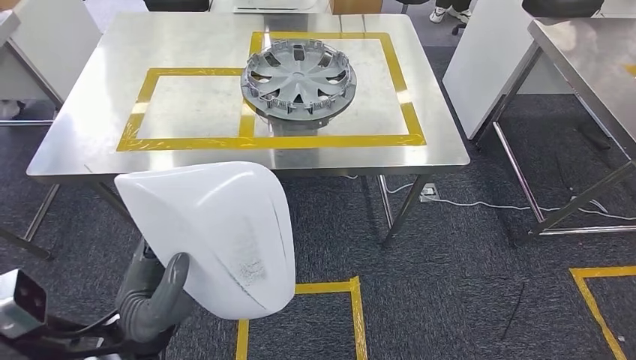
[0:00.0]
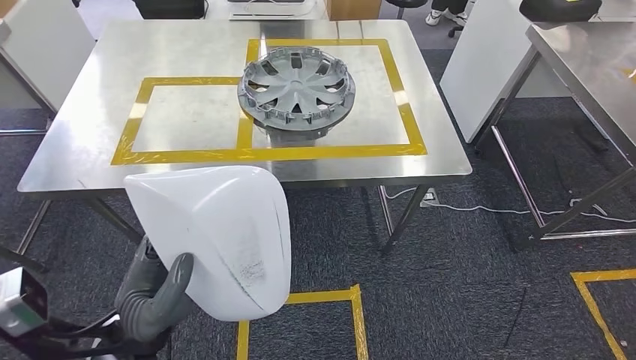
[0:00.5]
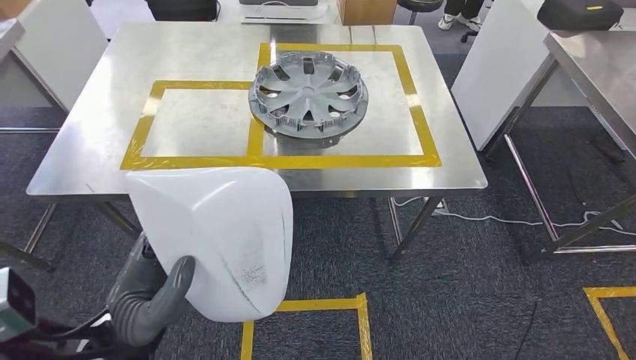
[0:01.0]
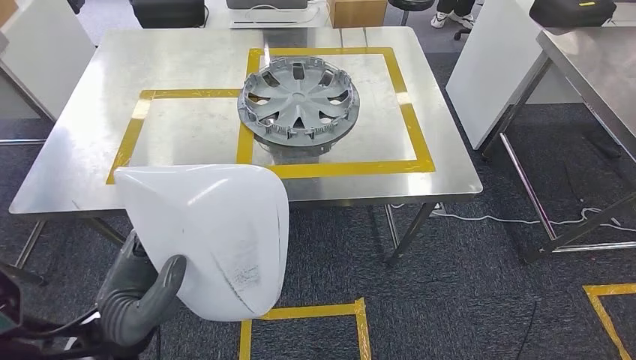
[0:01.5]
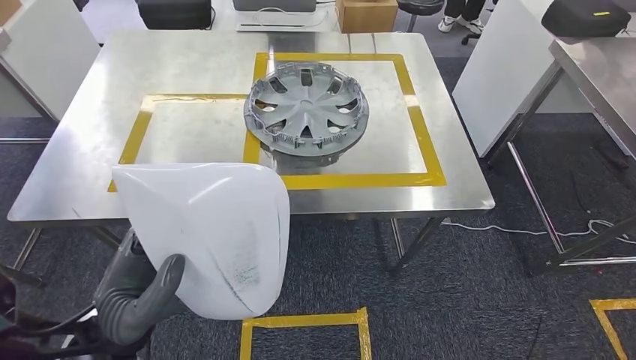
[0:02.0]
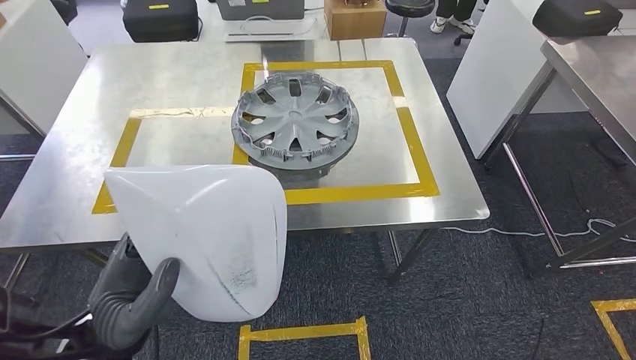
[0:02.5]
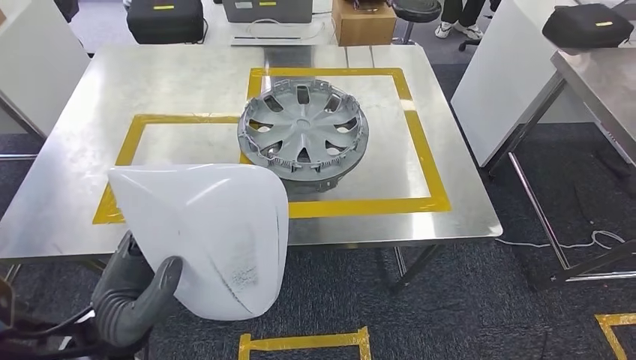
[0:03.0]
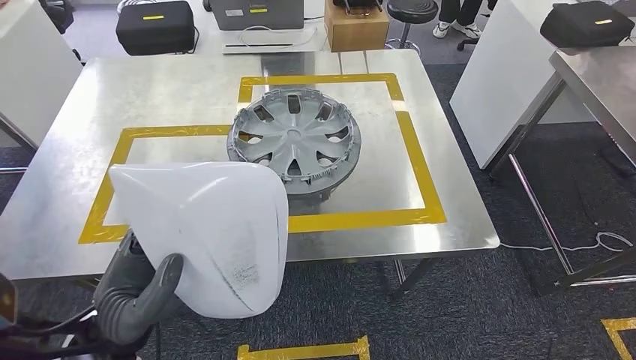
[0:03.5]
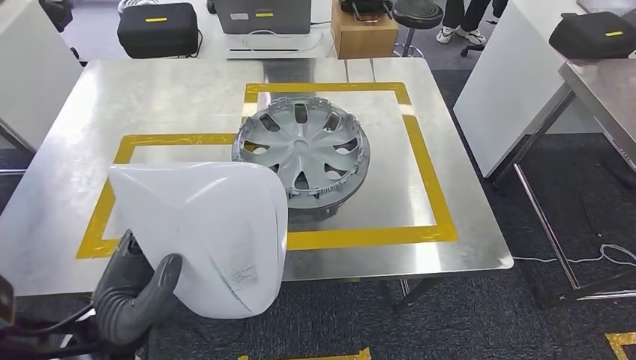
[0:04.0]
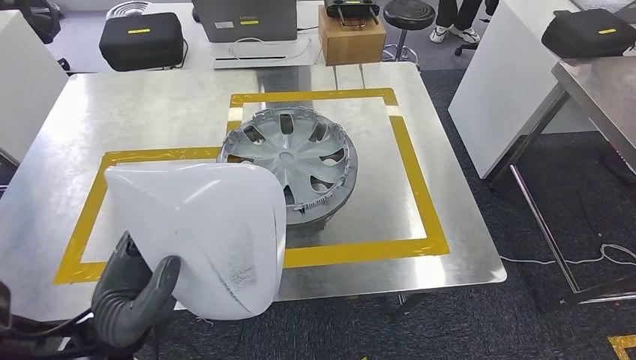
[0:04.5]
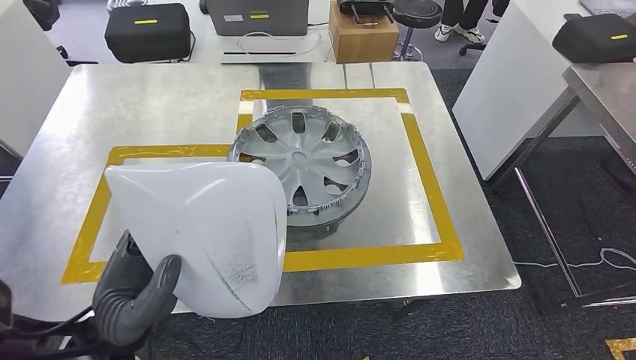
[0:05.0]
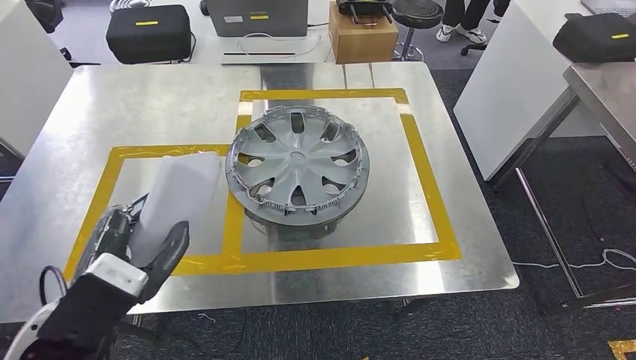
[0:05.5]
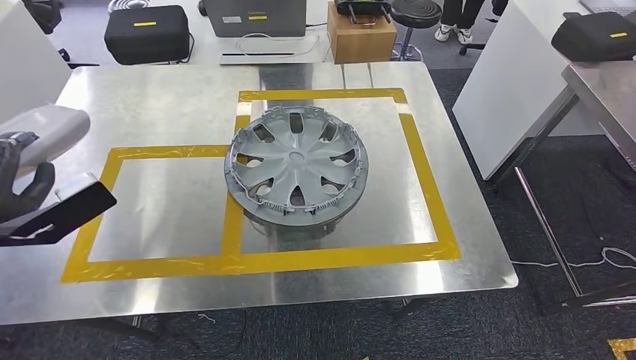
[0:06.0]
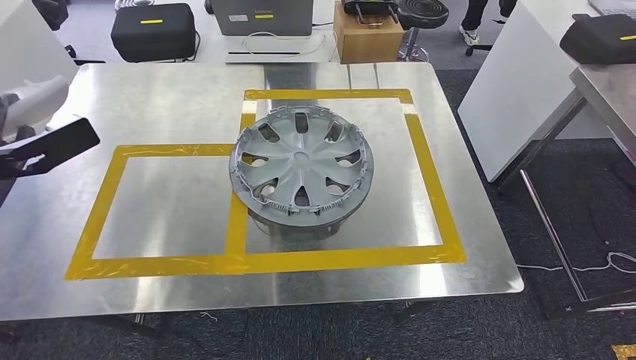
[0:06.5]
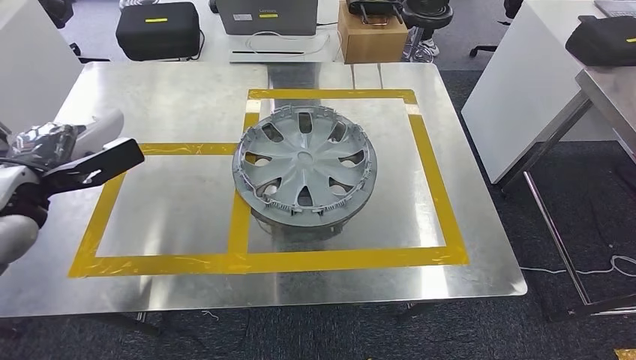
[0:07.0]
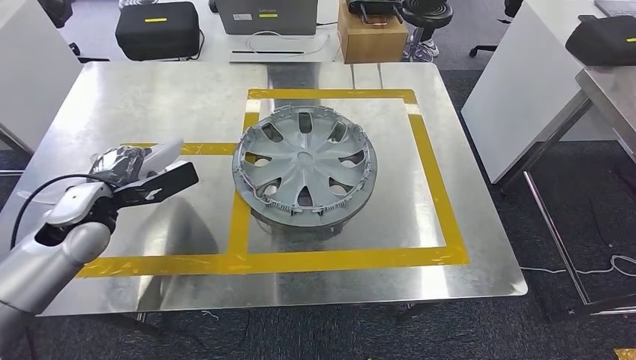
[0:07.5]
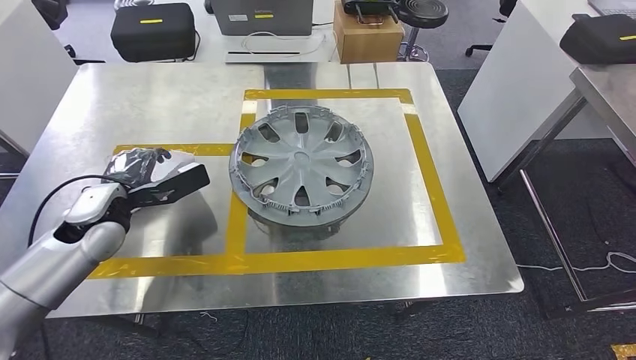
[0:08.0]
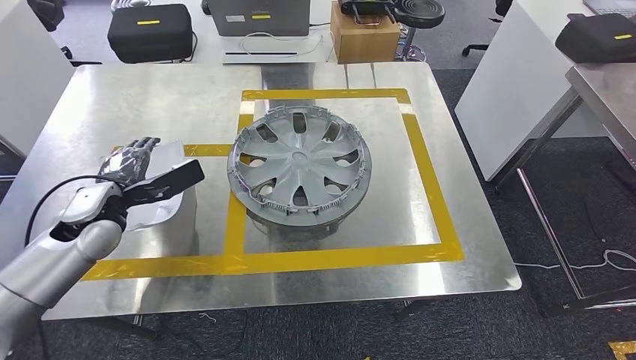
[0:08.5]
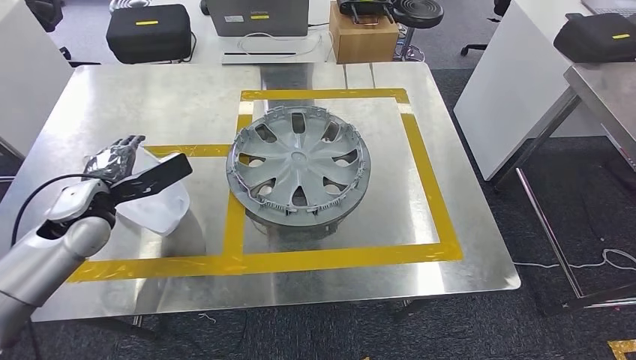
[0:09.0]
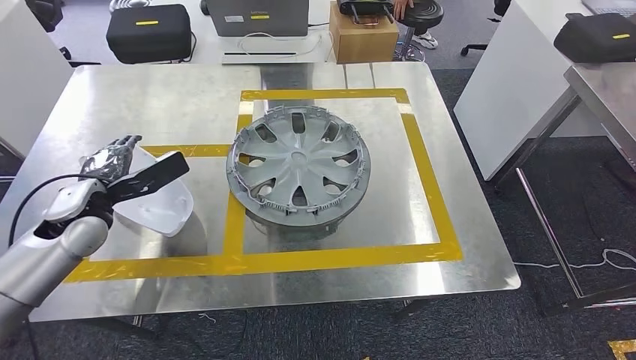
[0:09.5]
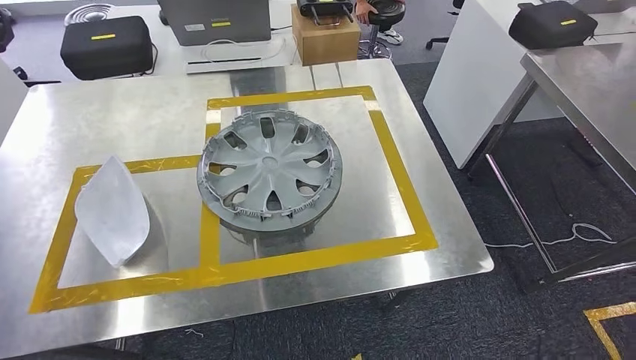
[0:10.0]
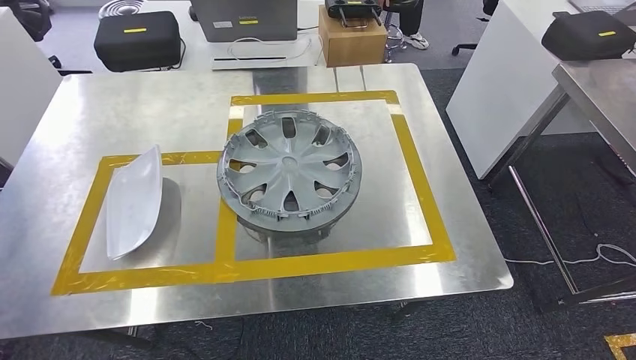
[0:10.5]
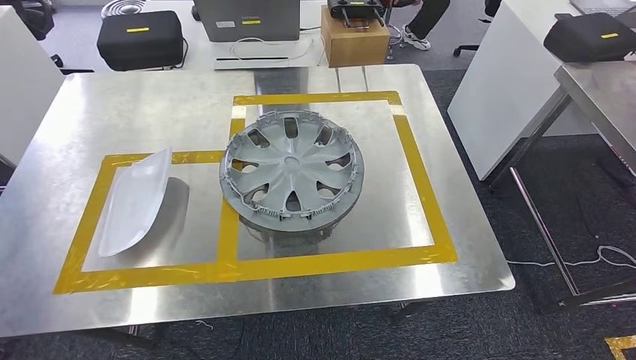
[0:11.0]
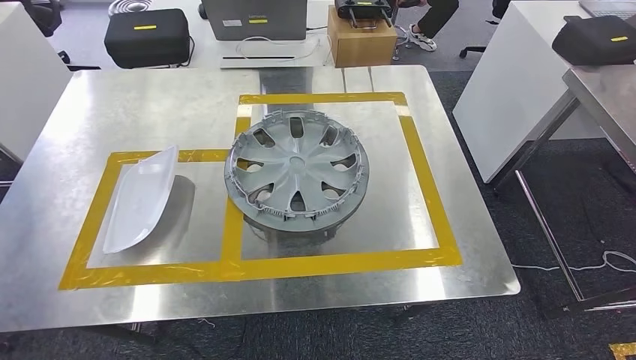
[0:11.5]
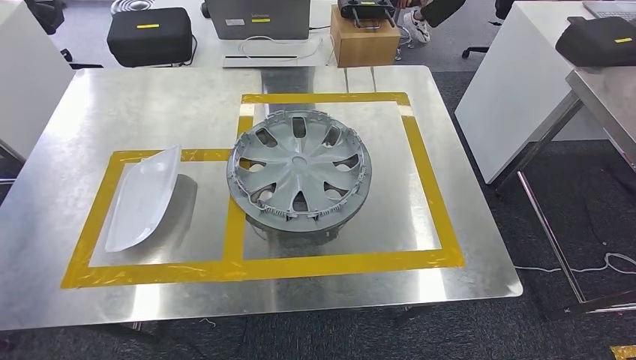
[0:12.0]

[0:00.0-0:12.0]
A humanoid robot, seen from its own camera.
Step, 0:00.0 to 0:03.5: Move the small component to the workbench.
Step, 0:04.0 to 0:11.5: Insert the small component into the corresponding slot on the workbench.

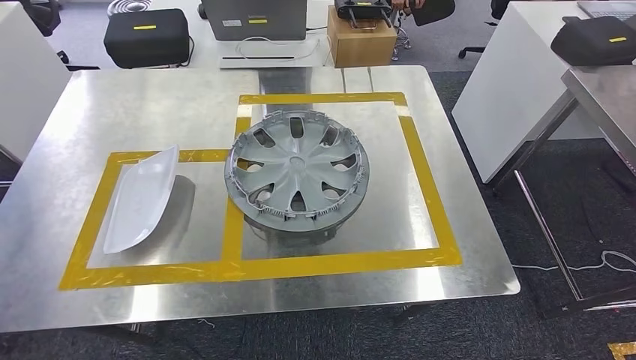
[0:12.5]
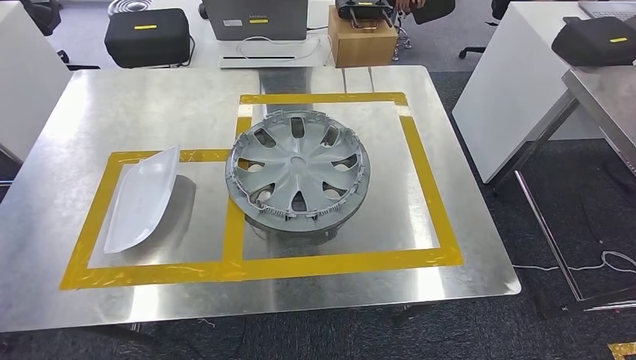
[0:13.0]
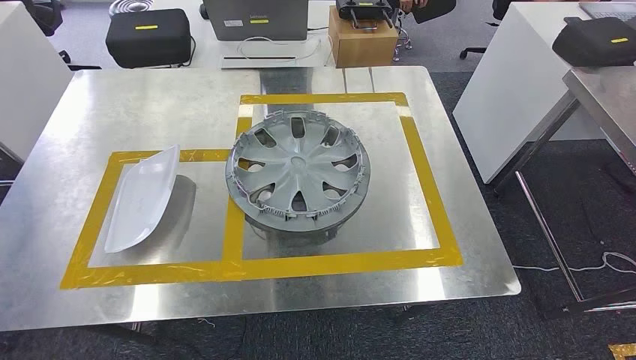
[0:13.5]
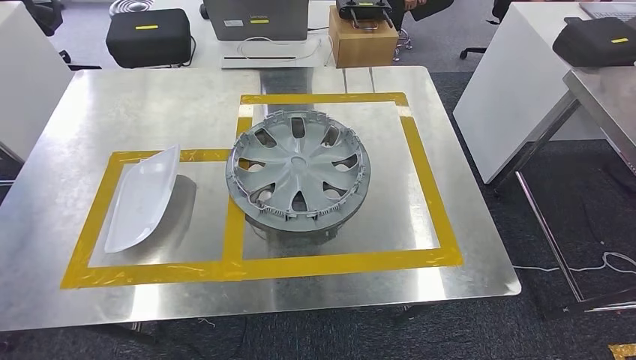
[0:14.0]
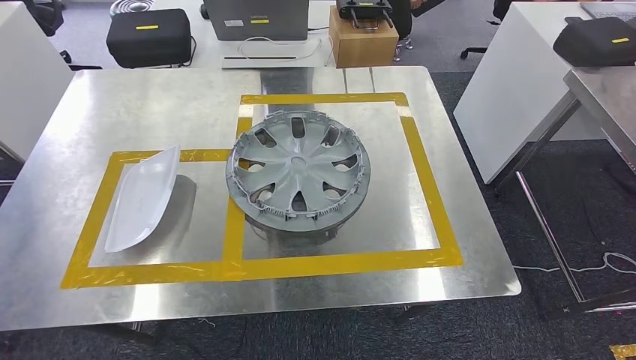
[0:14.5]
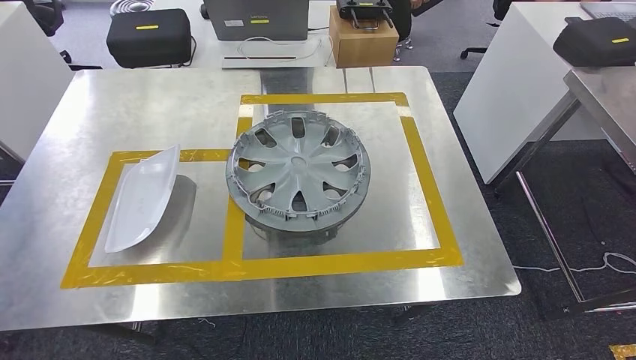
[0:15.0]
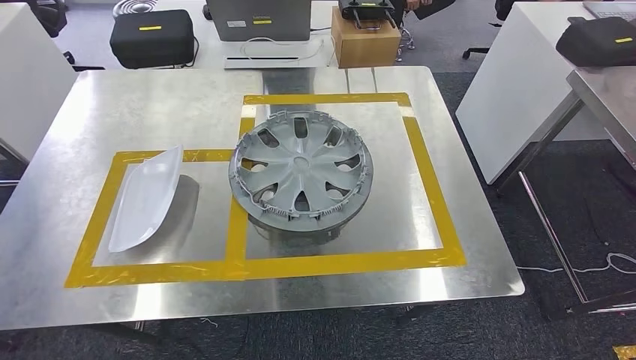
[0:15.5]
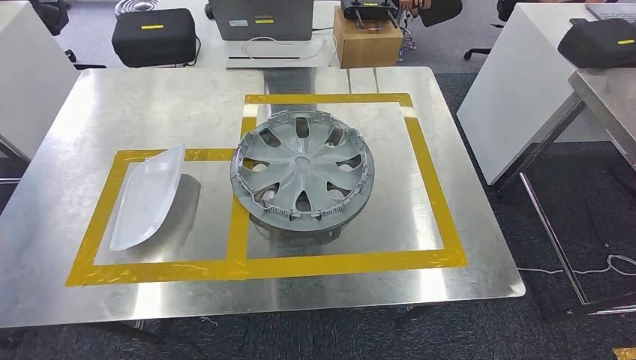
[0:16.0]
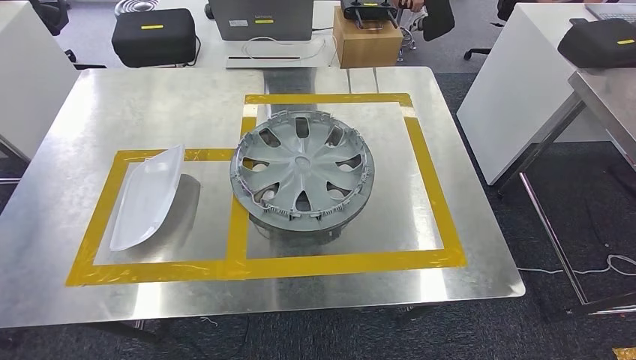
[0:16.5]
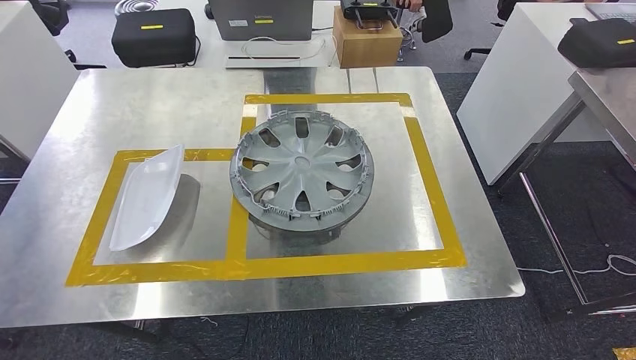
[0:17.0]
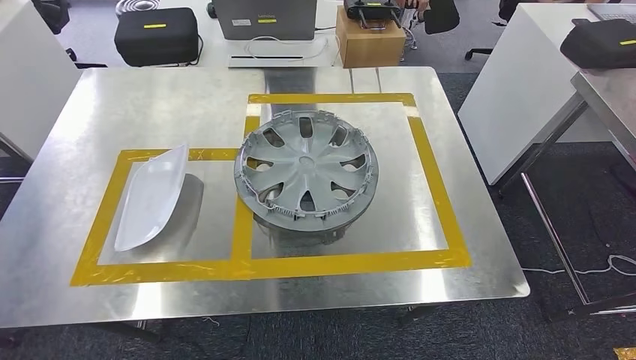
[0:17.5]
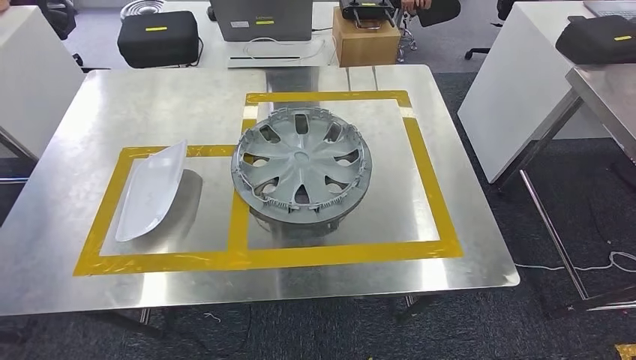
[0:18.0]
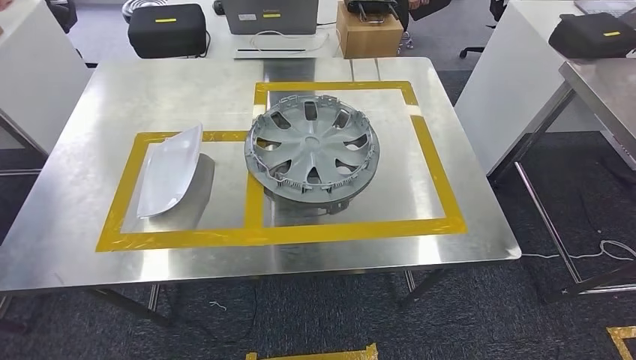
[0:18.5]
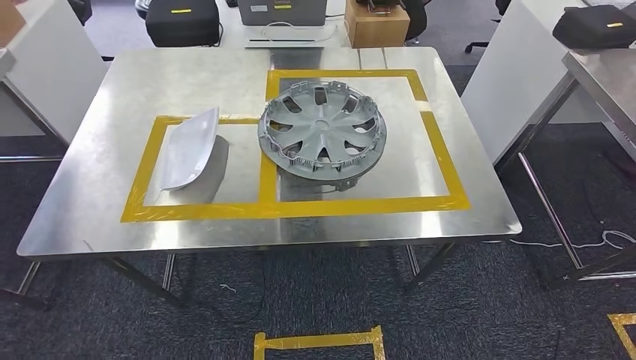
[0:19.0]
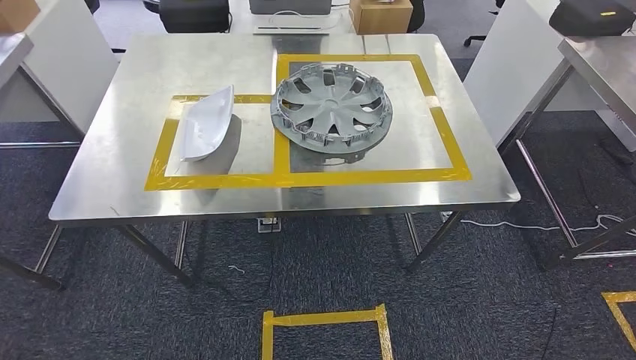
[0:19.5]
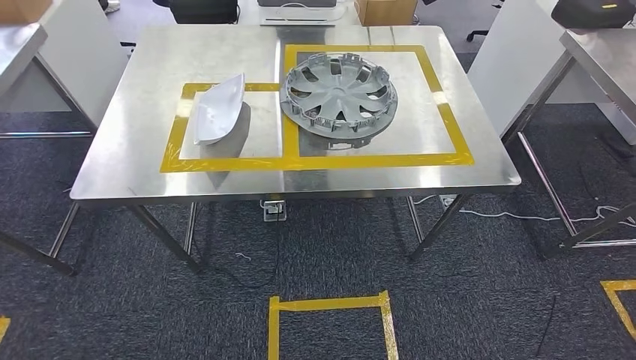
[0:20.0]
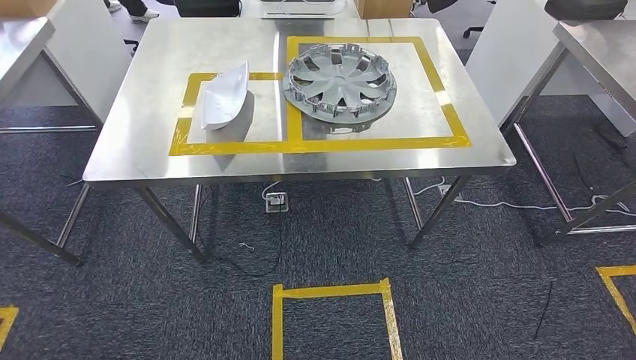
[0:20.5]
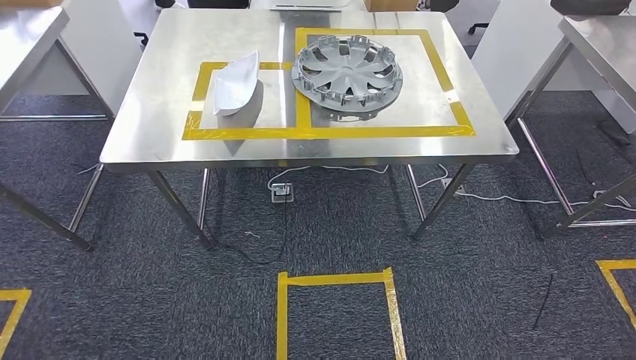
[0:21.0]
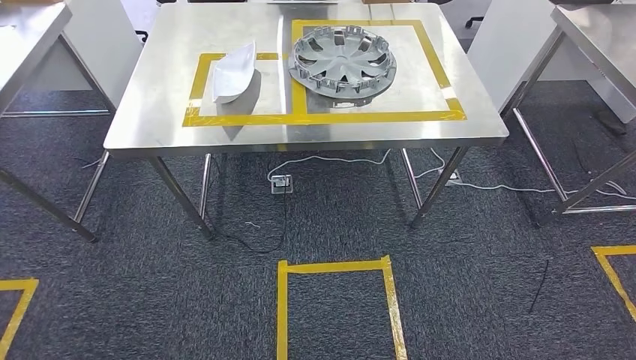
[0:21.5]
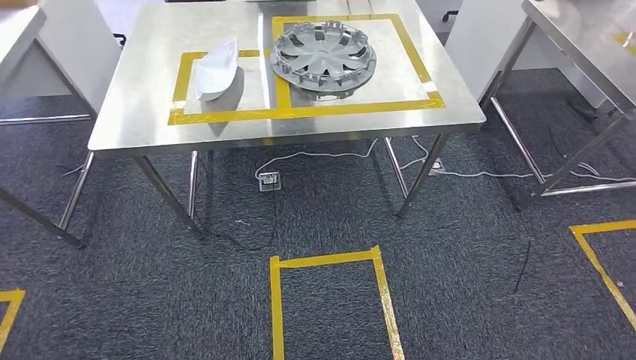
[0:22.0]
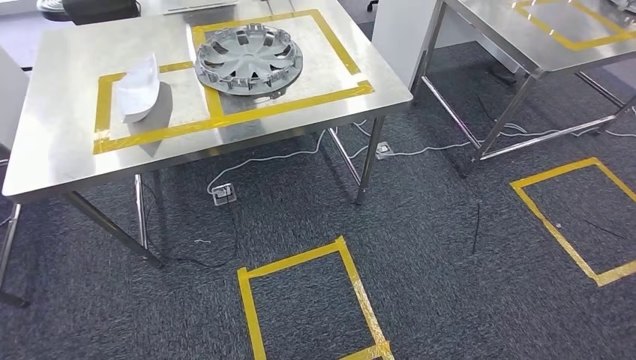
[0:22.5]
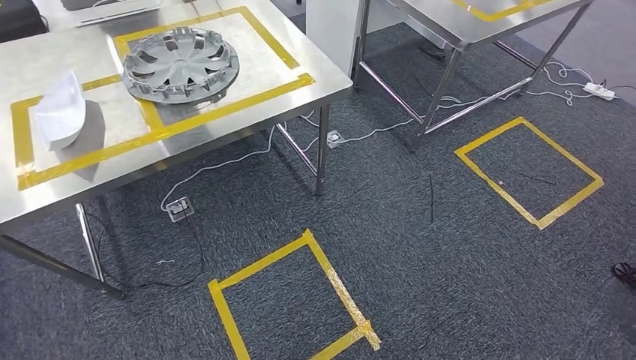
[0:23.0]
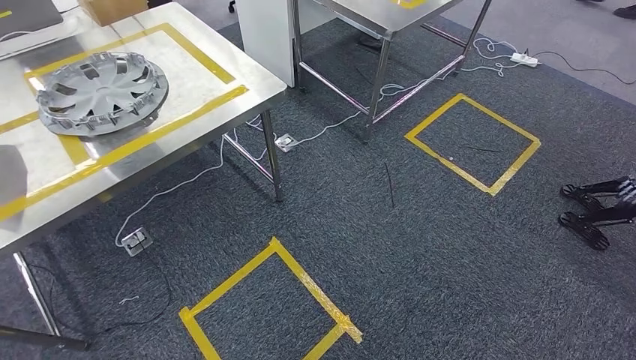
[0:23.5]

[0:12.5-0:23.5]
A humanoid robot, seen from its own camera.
0:12.5 to 0:14.5: The left hand heads downward and to the right, covering some 30 cm.
0:14.5 to 0:16.0: The left hand goes roughly 20 cm to the right.
0:16.0 to 0:18.0: The hands move only a little.
